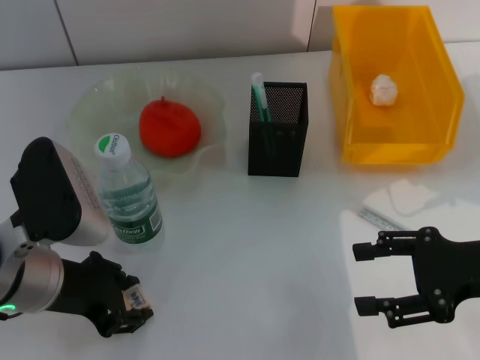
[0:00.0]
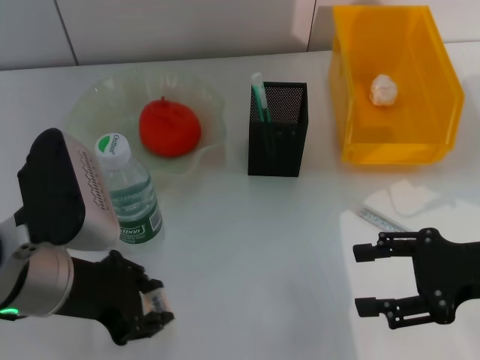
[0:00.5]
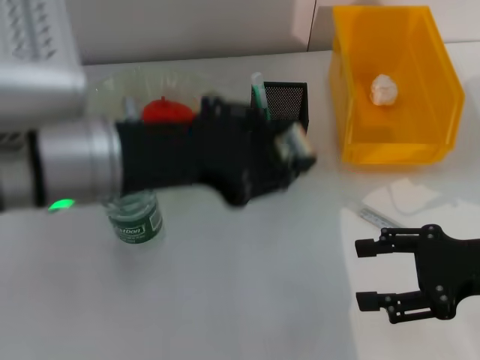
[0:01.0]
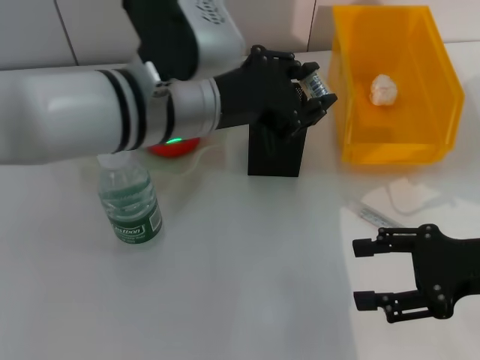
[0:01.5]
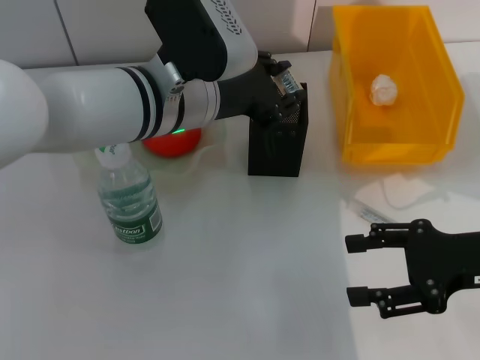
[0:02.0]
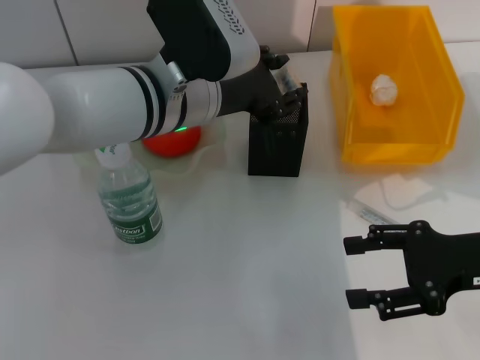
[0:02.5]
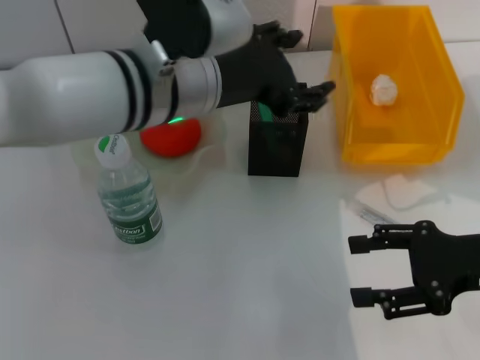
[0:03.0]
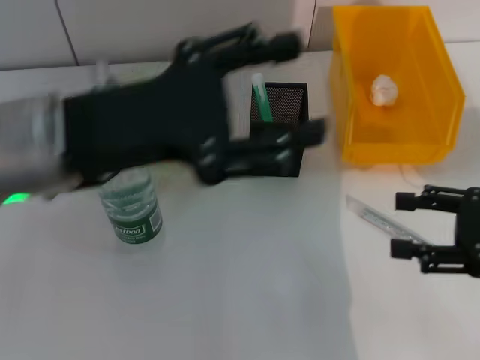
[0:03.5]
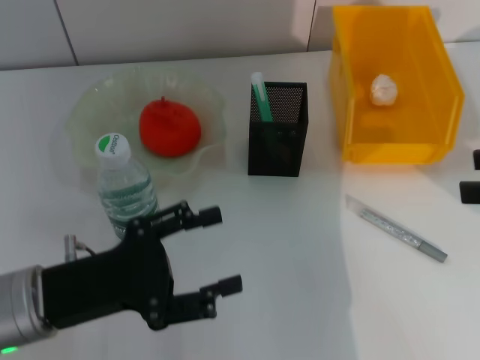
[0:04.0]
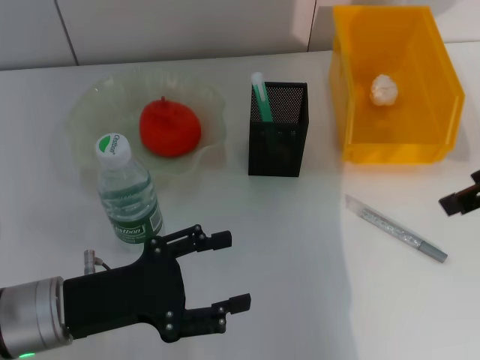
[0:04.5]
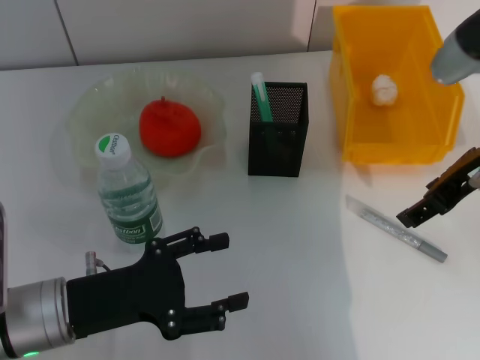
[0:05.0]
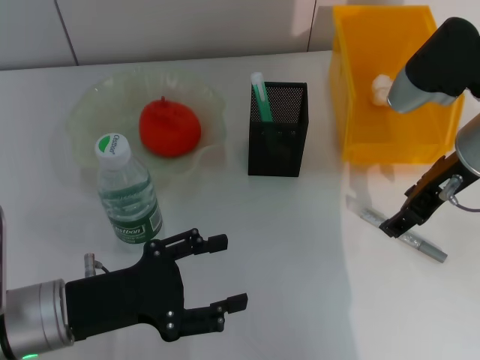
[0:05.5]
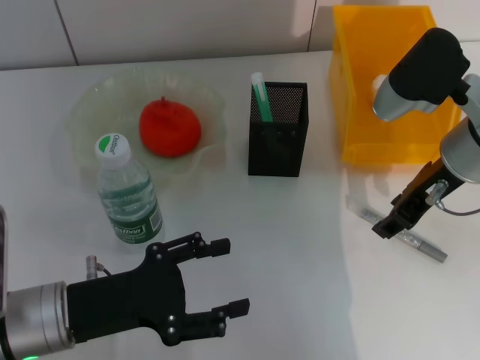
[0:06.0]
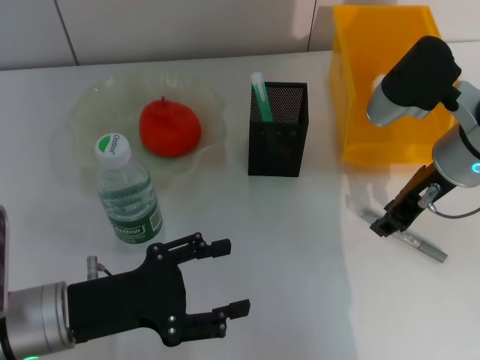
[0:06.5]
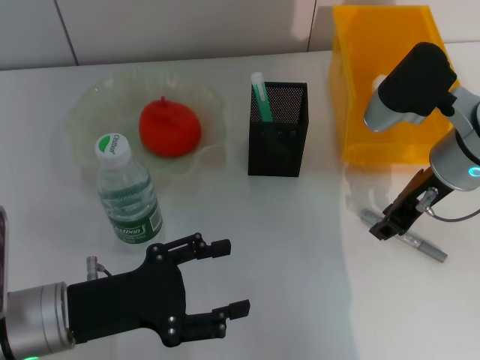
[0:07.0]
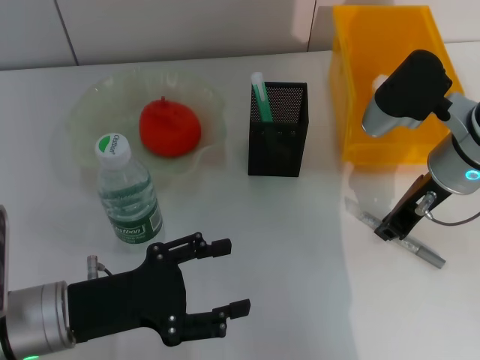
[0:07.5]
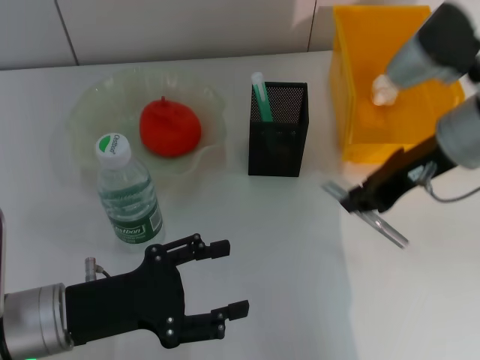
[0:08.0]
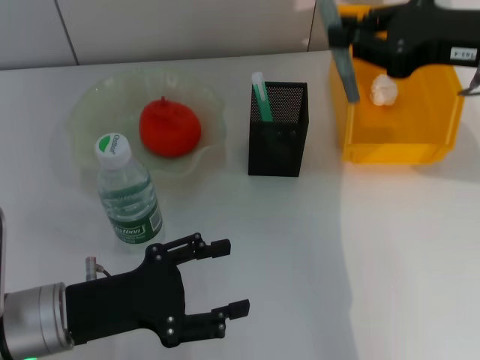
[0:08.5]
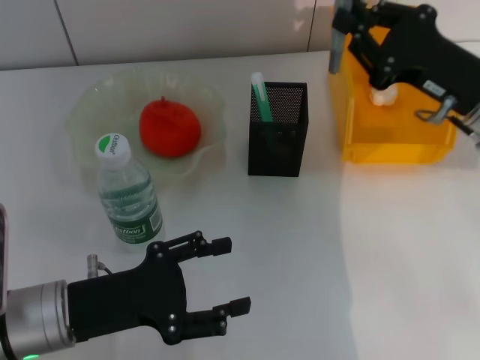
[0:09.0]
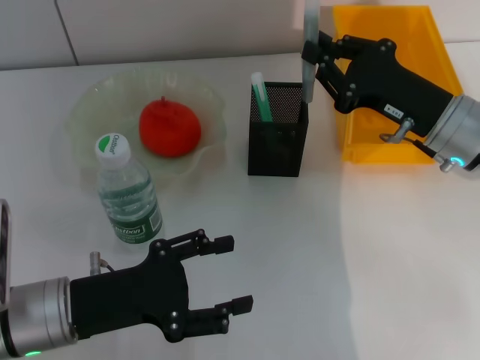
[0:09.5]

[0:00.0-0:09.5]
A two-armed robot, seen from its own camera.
Step, 0:00.5 to 0:02.5: Place the eraser into the pen holder with the left hand.
Step, 0:03.0 to 0:07.0: Grab the gray glue with the right hand.
0:00.0 to 0:02.0: The left gripper goes roughly 15 cm to the right and forward, and closes.
0:02.0 to 0:04.0: The right gripper travels upward and to the right by some 15 cm. The left gripper travels to the left, backward and downward by about 20 cm, and opens up.
0:04.0 to 0:05.5: The right gripper moves to the left and forward, some 15 cm.
0:05.5 to 0:07.5: The right gripper closes its fingers.
0:07.5 to 0:09.5: The right gripper goes upward and returns, about 10 cm each way.

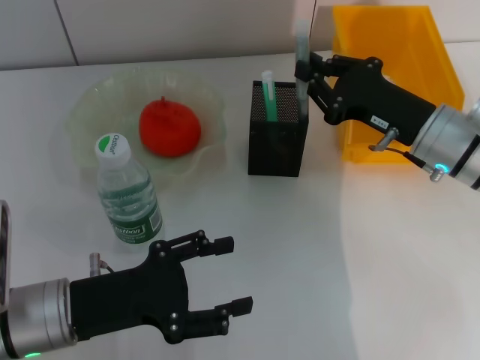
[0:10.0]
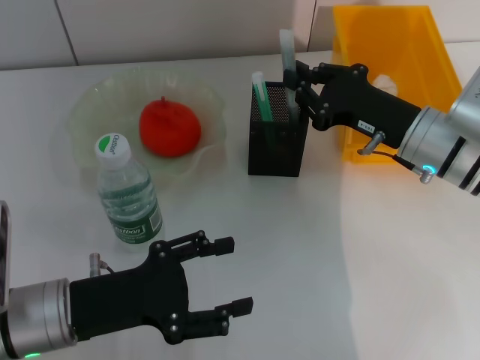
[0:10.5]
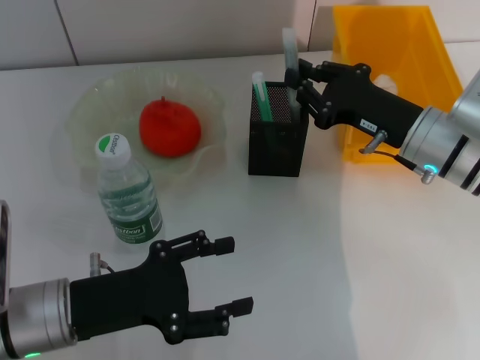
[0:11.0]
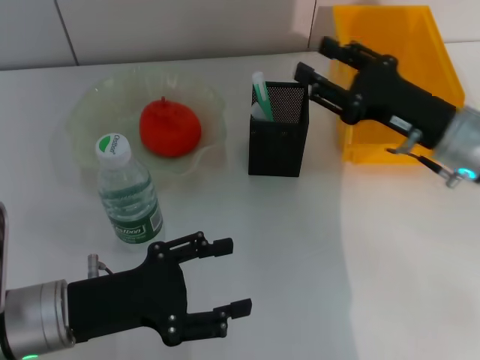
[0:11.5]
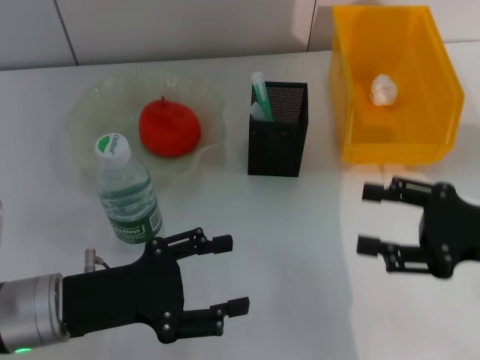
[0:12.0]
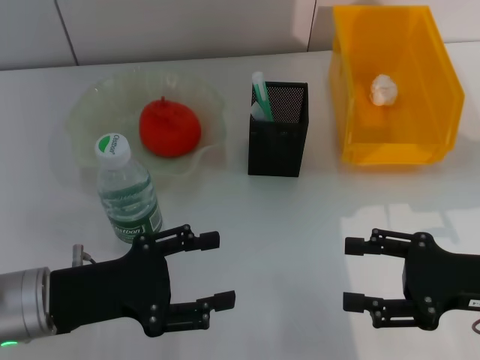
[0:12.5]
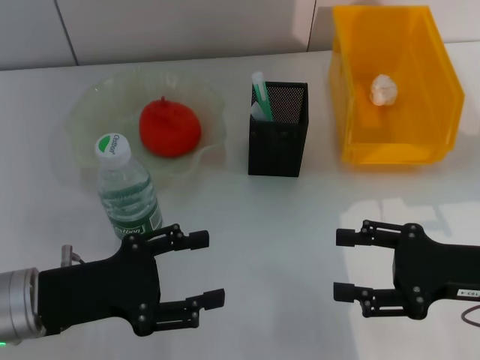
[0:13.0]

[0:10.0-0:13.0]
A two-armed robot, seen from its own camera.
0:10.0 to 0:11.5: The right gripper opens its fingers.
0:11.5 to 0:13.0: The right gripper shifts about 10 cm backward, and opens.

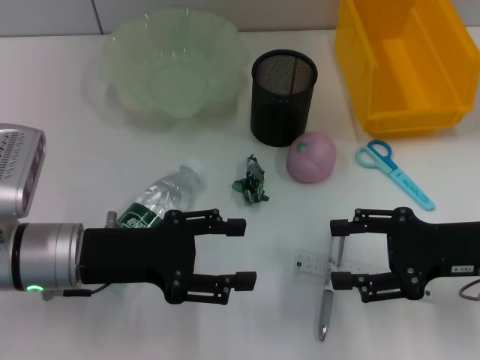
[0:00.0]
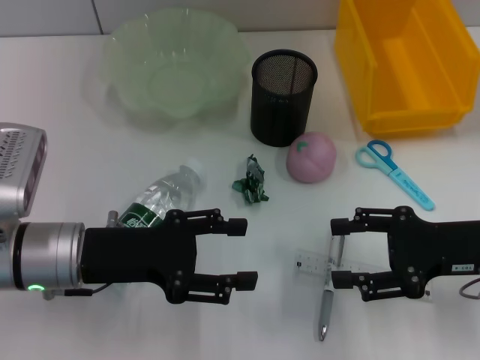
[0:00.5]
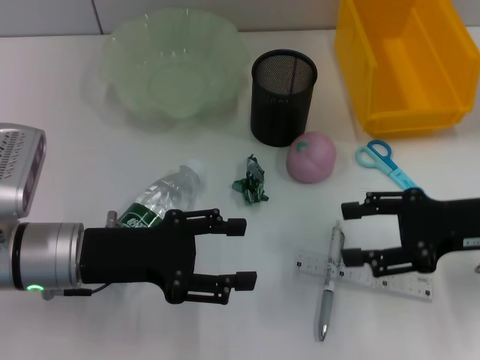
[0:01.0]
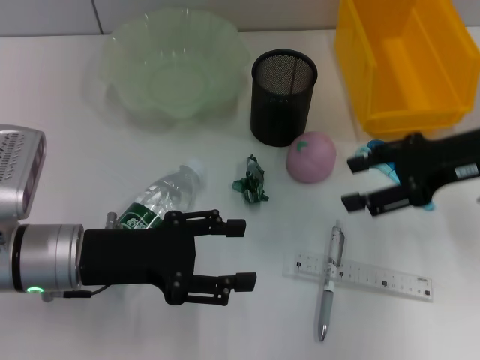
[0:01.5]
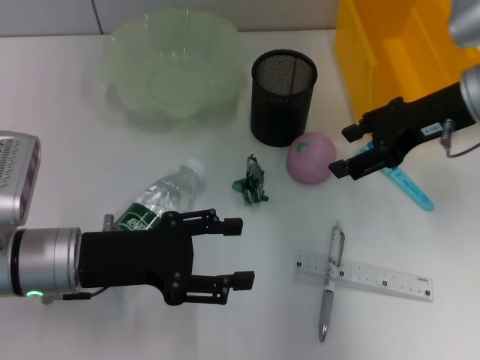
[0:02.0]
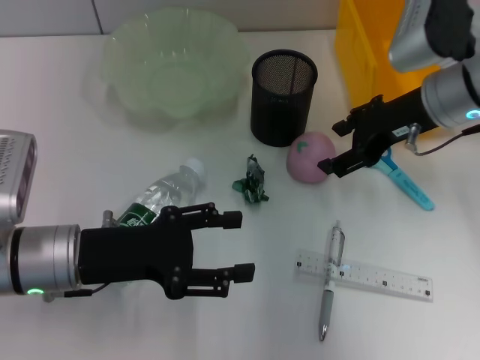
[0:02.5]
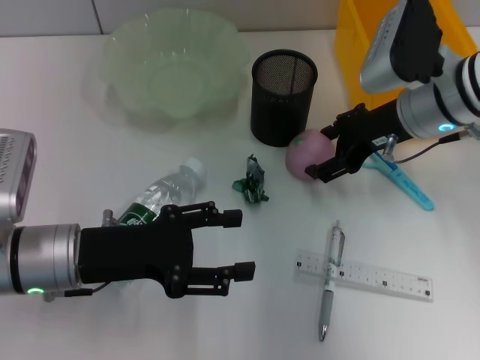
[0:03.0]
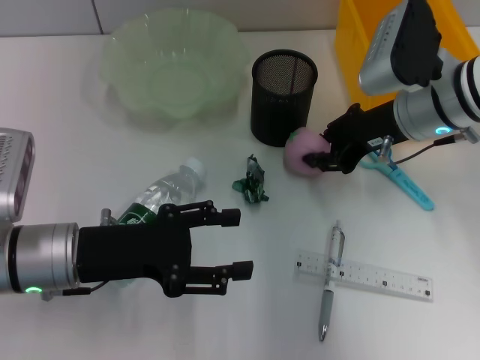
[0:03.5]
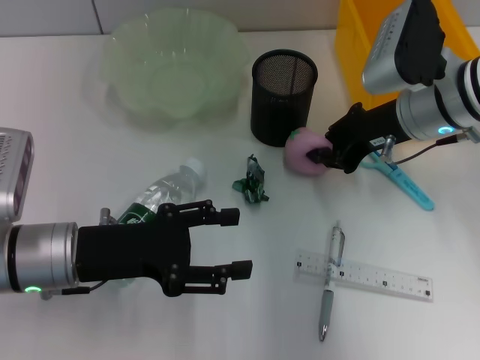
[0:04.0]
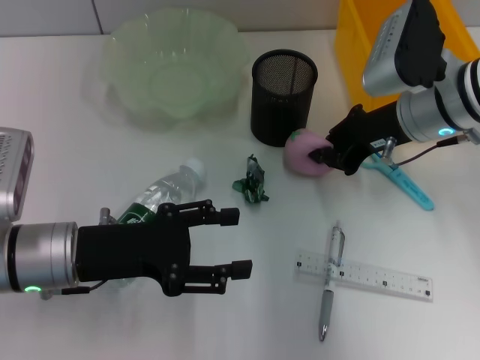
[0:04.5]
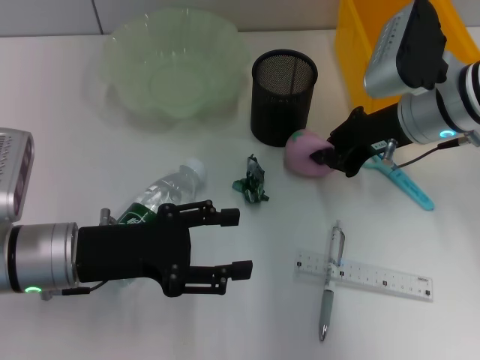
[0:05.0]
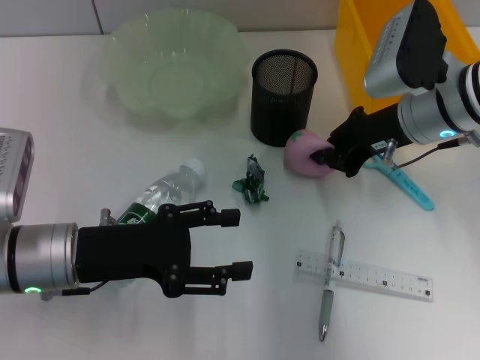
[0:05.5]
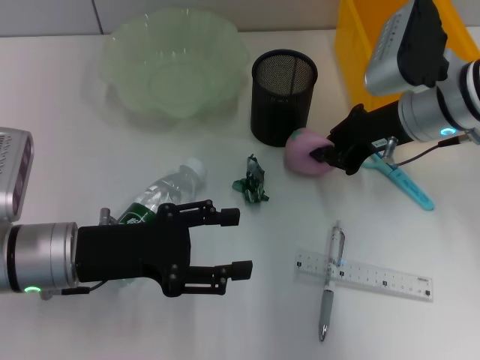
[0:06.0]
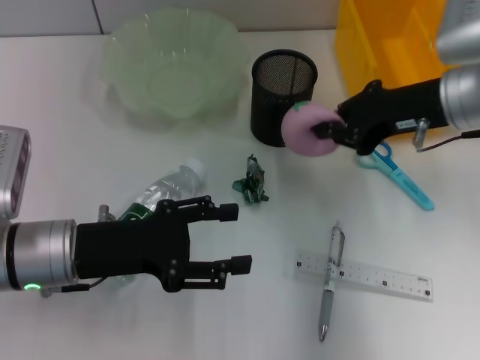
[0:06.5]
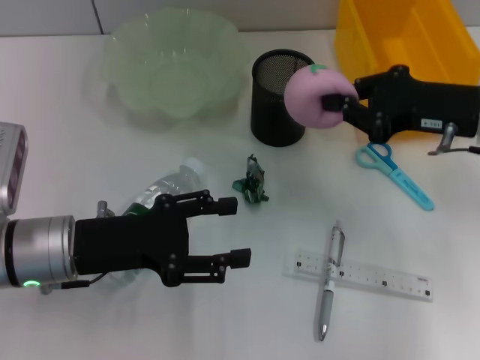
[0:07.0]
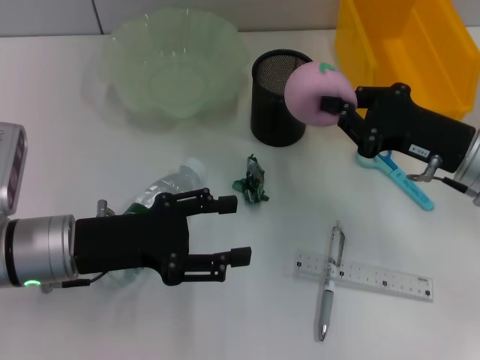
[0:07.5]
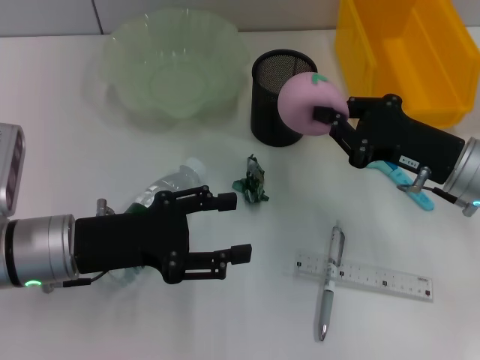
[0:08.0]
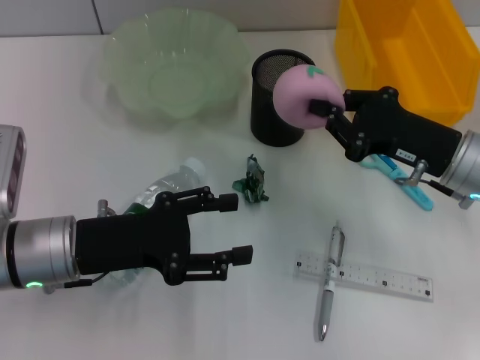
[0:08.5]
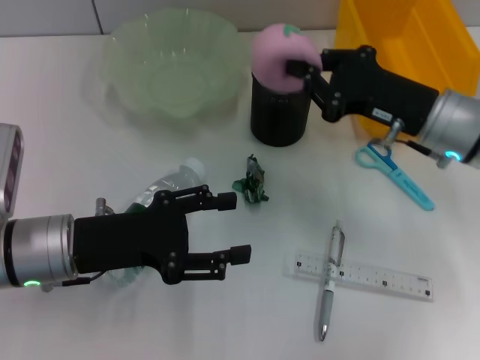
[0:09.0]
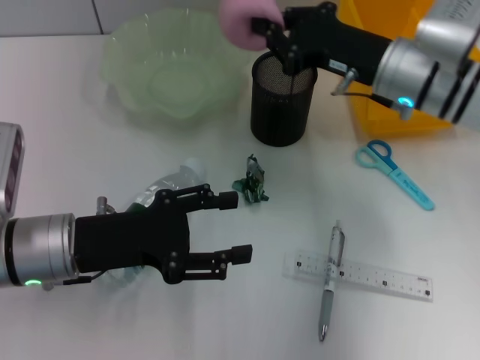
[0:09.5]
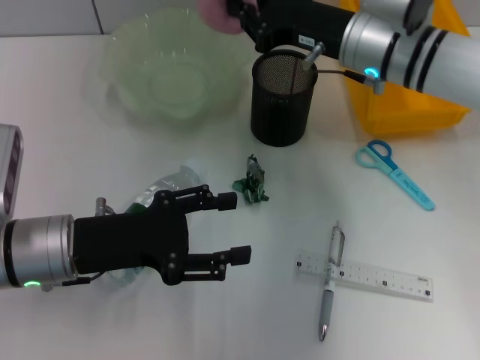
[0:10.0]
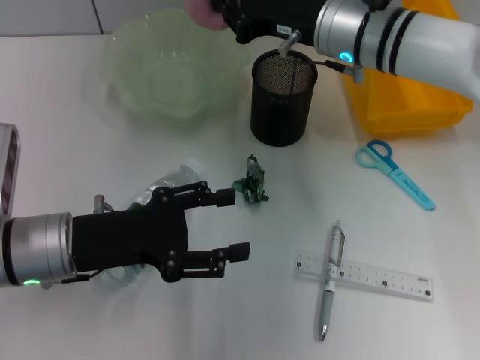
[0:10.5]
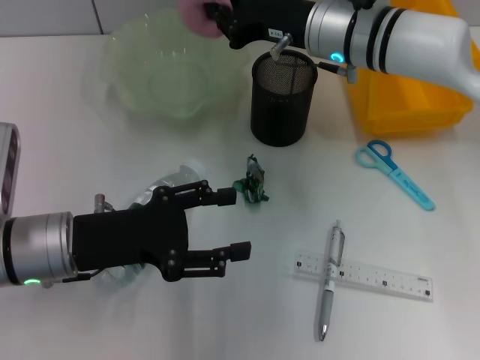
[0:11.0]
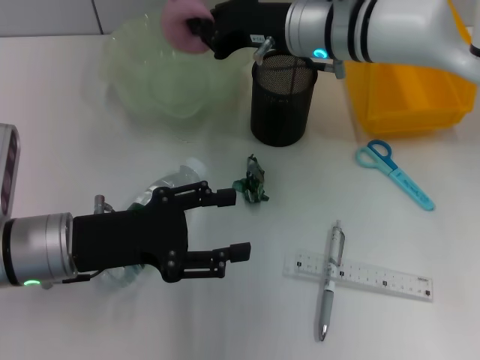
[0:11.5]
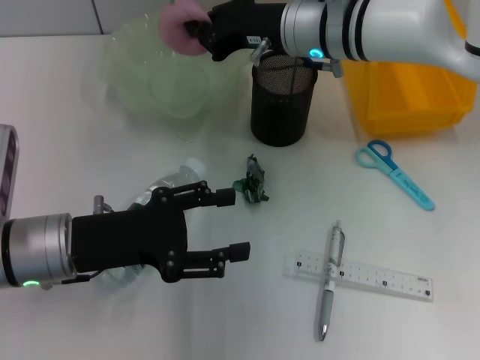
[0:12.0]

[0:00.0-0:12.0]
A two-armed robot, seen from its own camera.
Step, 0:00.0 to 0:05.0: Grab the peach with the right hand.
0:00.0 to 0:02.0: The right gripper heads forward and upward, covering roughly 15 cm.
0:02.0 to 0:04.0: The right gripper ends up roughly 5 cm from where it was, and closes its fingers.
0:04.0 to 0:06.0: Both grippers stay about where they are.
0:06.0 to 0:08.0: The right gripper heads backward and downward, covering approximately 10 cm.
0:08.0 to 0:10.0: The right gripper is displaced forward, to the left and upward by some 15 cm.
0:10.0 to 0:12.0: The right gripper heads to the left, covering some 5 cm.

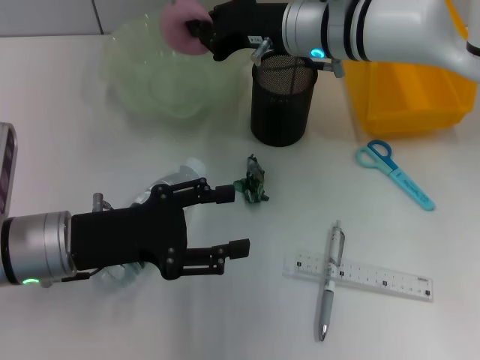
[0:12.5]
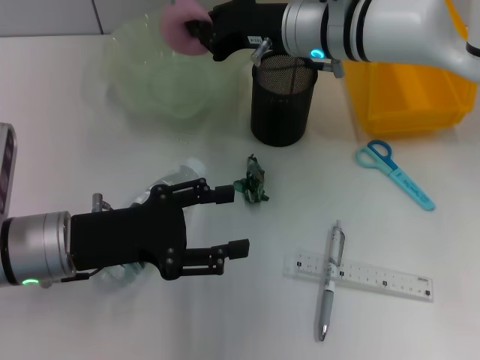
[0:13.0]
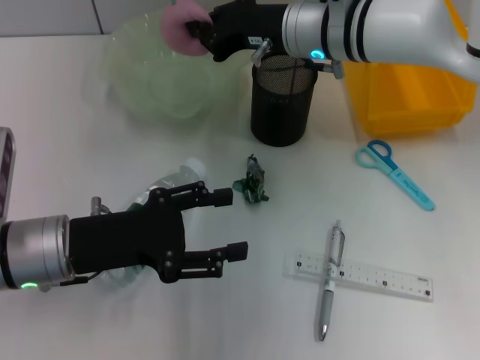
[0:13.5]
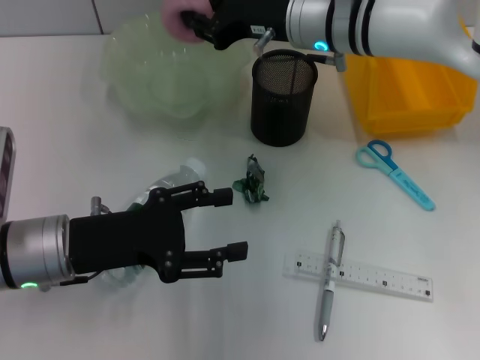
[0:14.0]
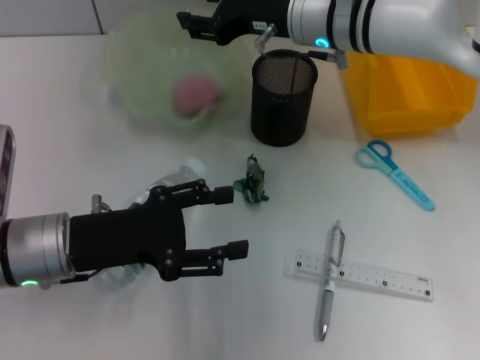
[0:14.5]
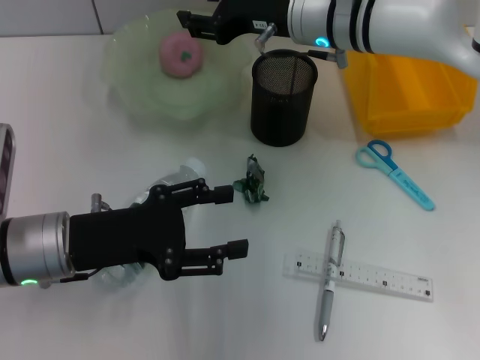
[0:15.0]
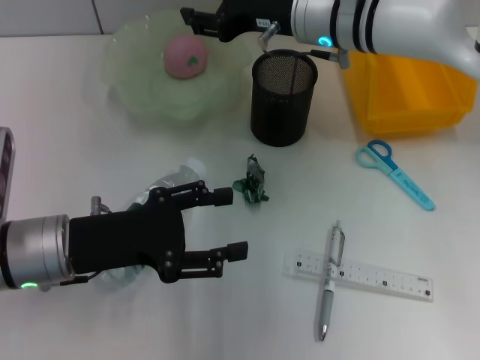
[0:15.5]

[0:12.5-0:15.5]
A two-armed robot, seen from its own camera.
Step, 0:12.5 to 0:14.5: Place the peach into the fruit bowl with the right hand.
0:12.5 to 0:14.0: Both grippers stay put.
0:14.0 to 0:15.5: The right gripper opens.
